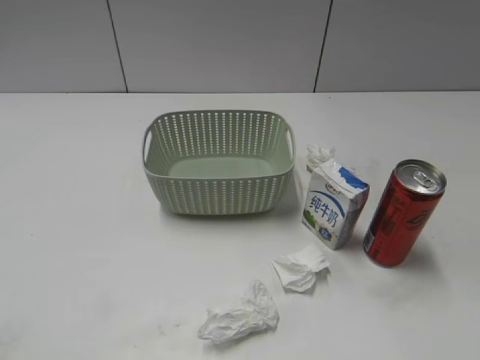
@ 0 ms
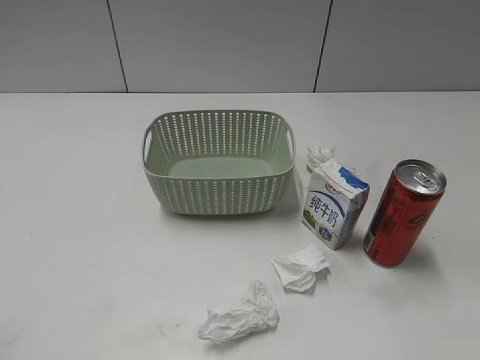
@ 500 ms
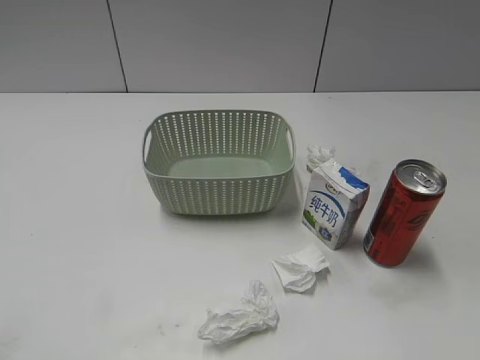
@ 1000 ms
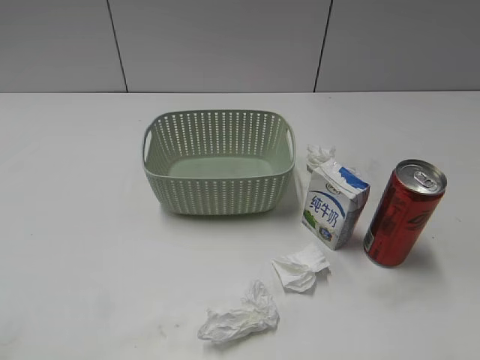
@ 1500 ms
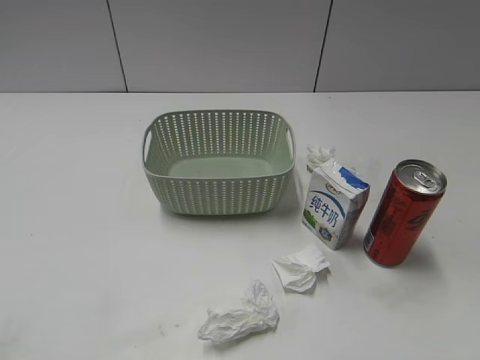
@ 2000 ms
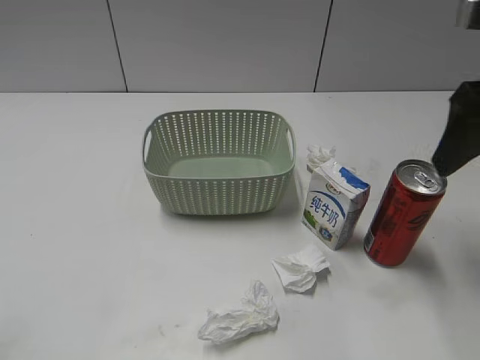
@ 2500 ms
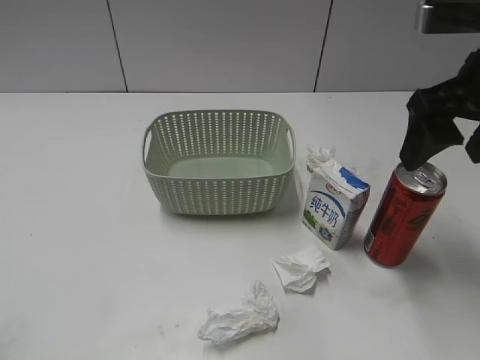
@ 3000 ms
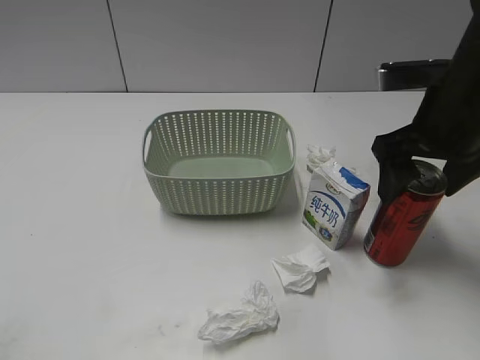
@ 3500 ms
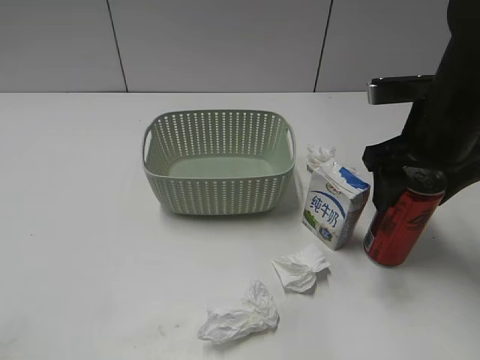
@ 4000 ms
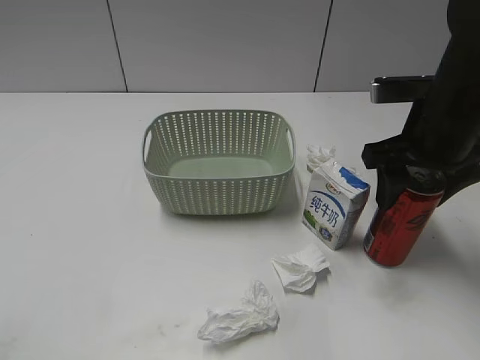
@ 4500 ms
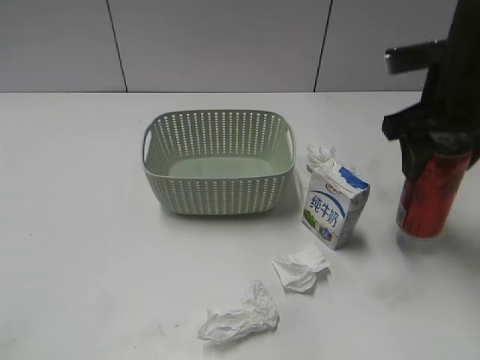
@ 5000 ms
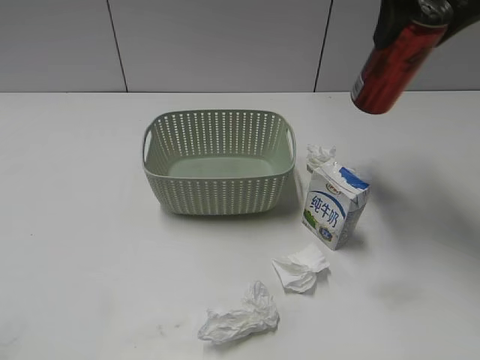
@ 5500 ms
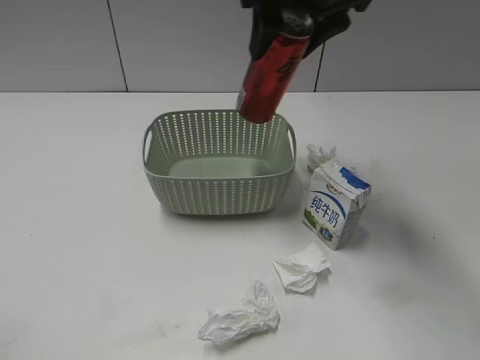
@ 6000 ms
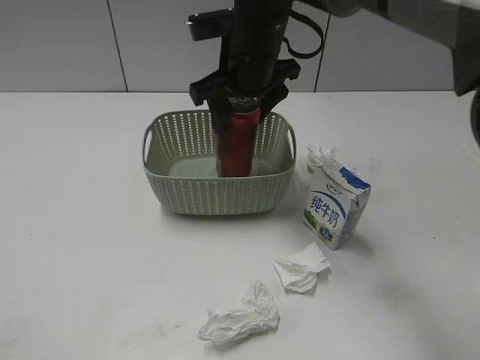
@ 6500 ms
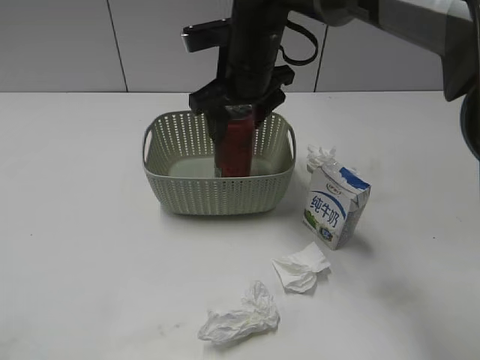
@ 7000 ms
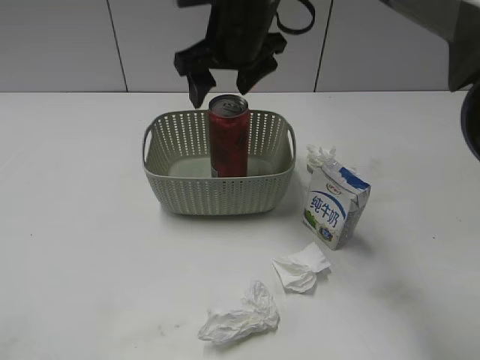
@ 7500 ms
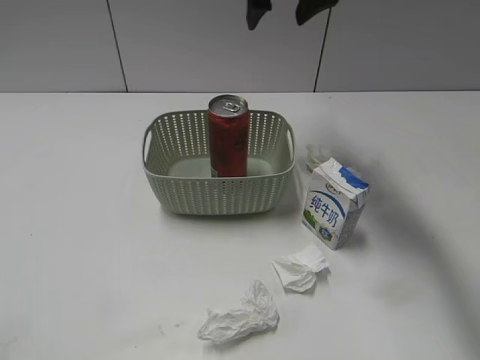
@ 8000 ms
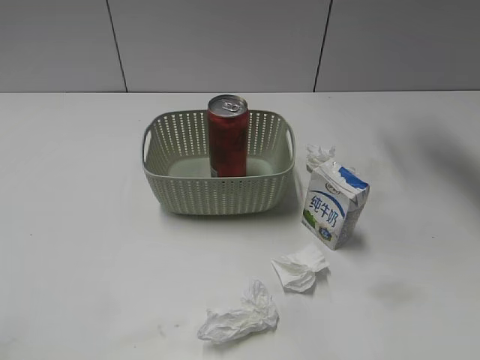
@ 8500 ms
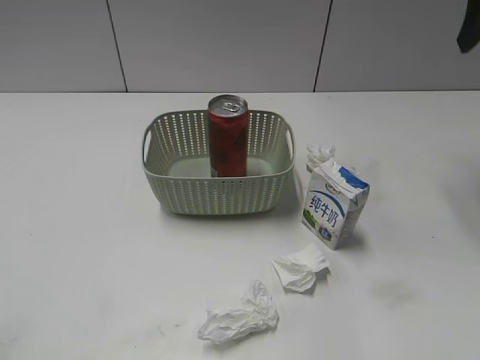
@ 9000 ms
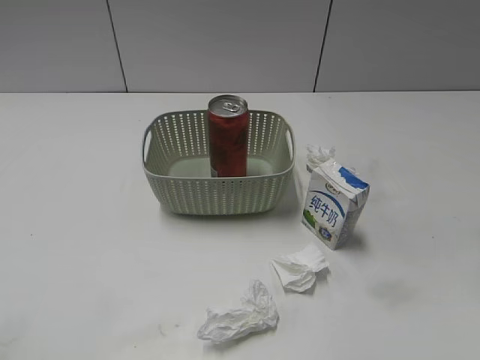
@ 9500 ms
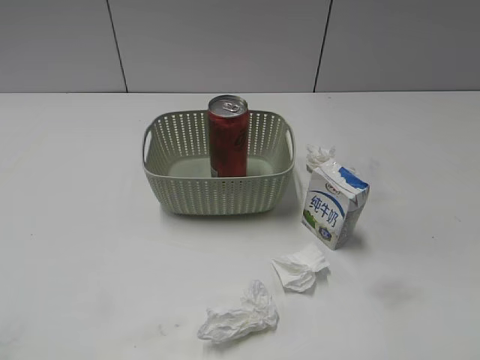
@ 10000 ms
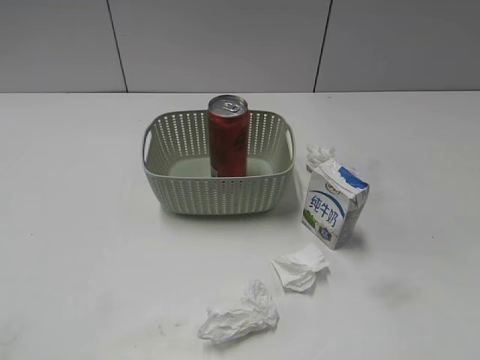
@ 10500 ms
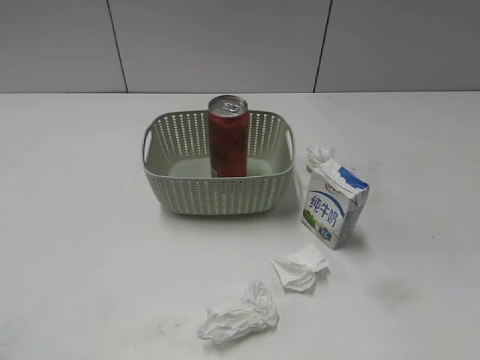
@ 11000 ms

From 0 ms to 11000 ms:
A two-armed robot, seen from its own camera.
Step, from 2500 ms to 4500 ms: Grasp the cola can with right gripper.
Step, from 5000 ms to 7500 ms: Place the cola can in the basket with right gripper.
From 2000 ms to 3500 ms: The right gripper travels forward, downward and to the left by some 15 cm, and opens.
From 3500 ms to 5500 ms: The right gripper shifts some 15 cm upward and forward, and closes up.
From 5500 ms to 7500 ms: The right gripper goes some 20 cm to the left and downward, and opens its fingers.
From 7500 ms to 9000 ms: The right gripper heads to the right, covering about 30 cm, and closes up.
From 9000 ms to 11000 ms: The right gripper is displaced backward by about 35 cm.

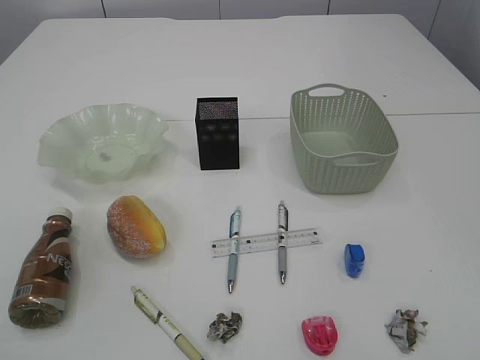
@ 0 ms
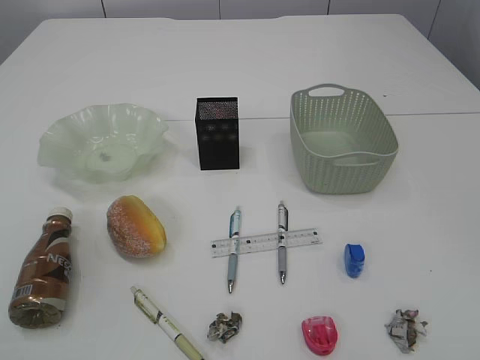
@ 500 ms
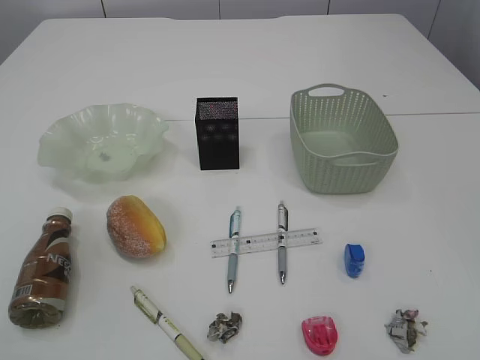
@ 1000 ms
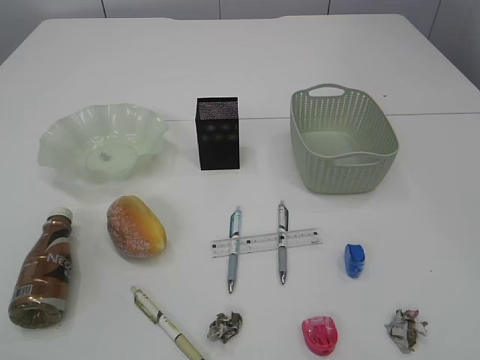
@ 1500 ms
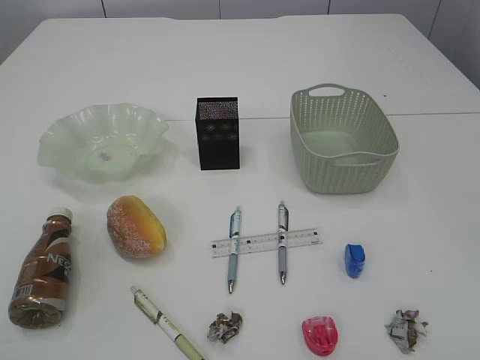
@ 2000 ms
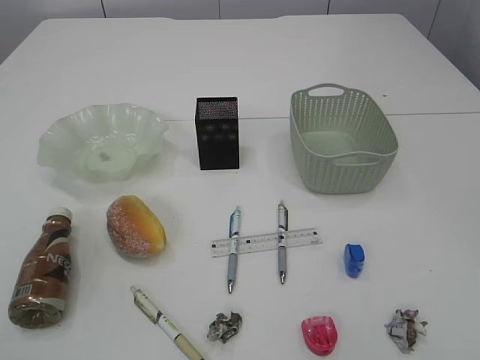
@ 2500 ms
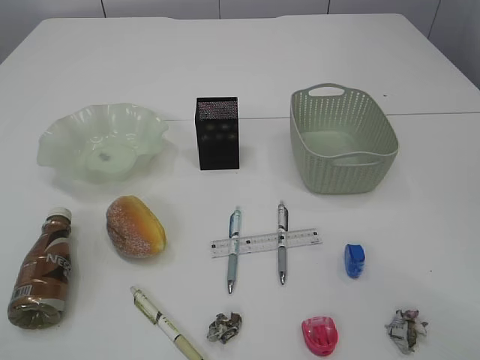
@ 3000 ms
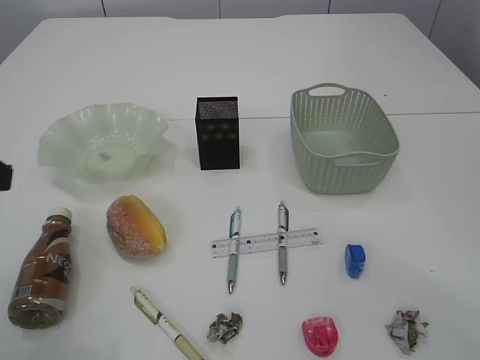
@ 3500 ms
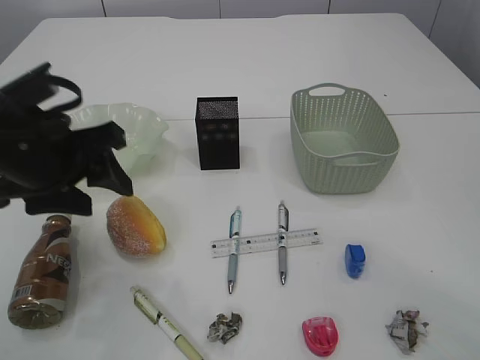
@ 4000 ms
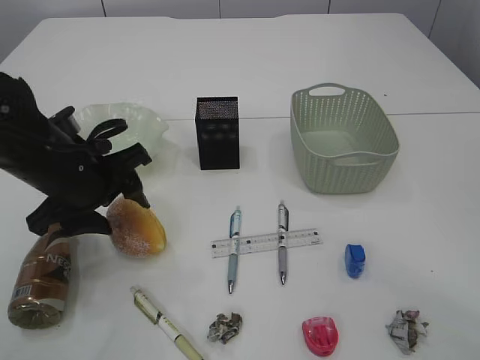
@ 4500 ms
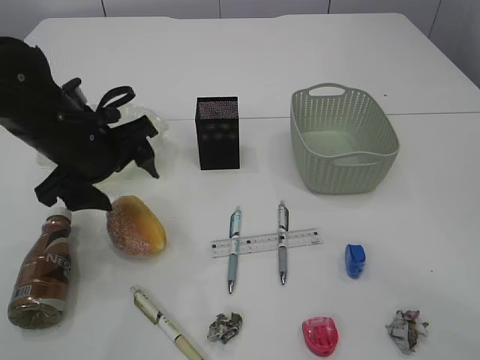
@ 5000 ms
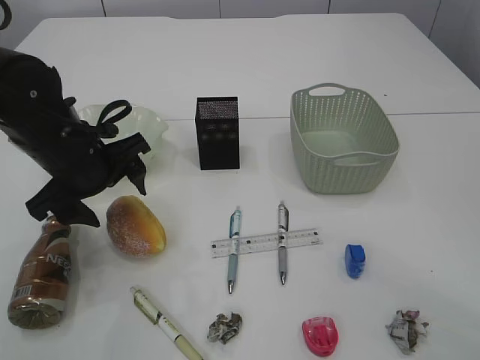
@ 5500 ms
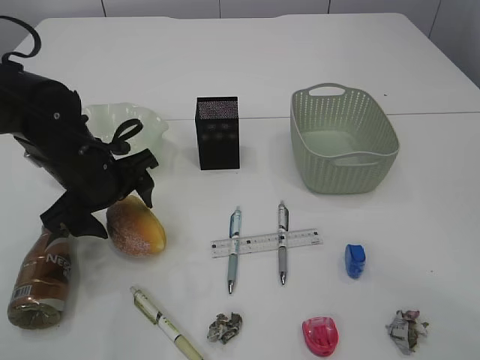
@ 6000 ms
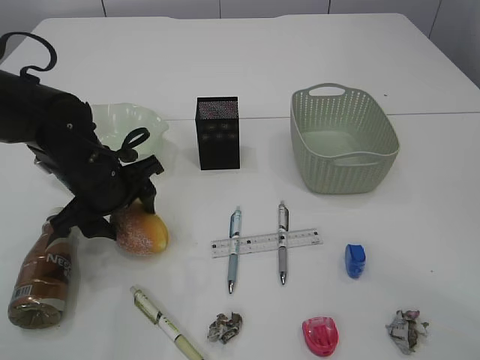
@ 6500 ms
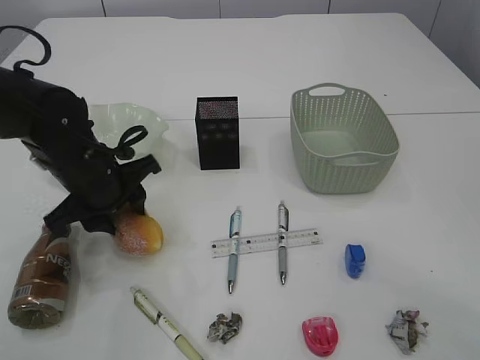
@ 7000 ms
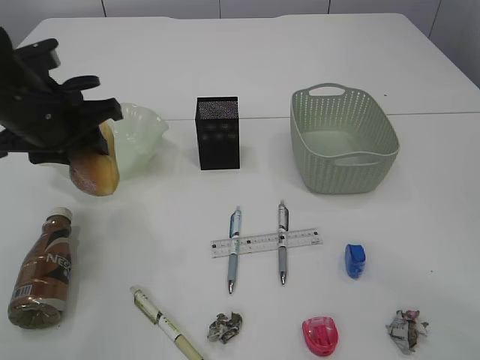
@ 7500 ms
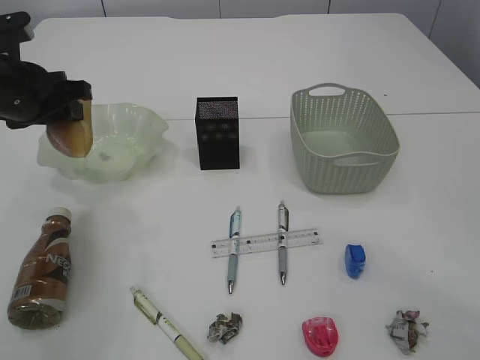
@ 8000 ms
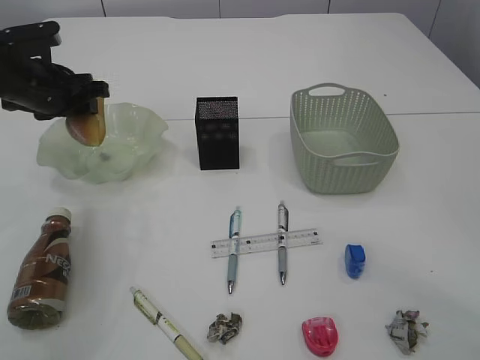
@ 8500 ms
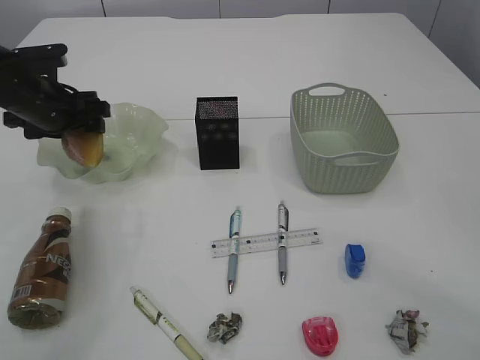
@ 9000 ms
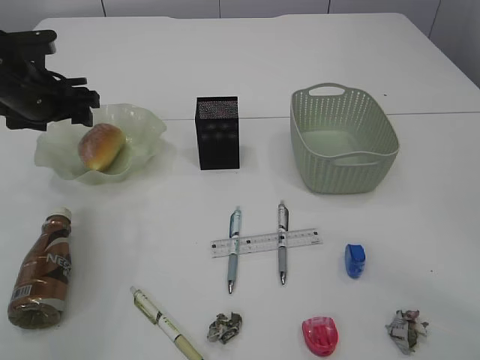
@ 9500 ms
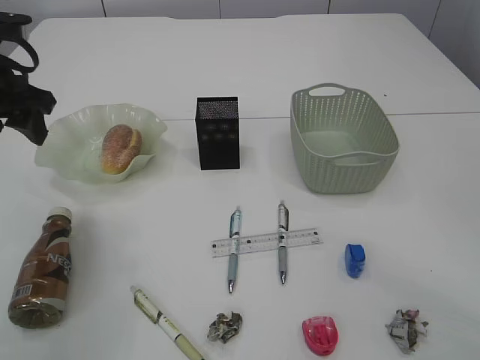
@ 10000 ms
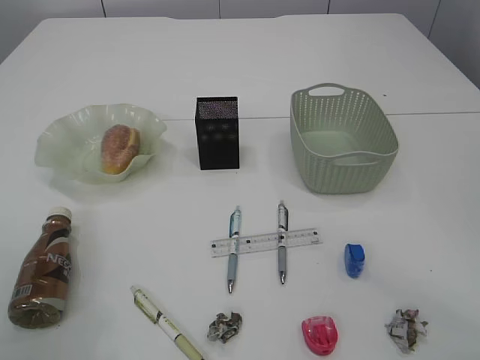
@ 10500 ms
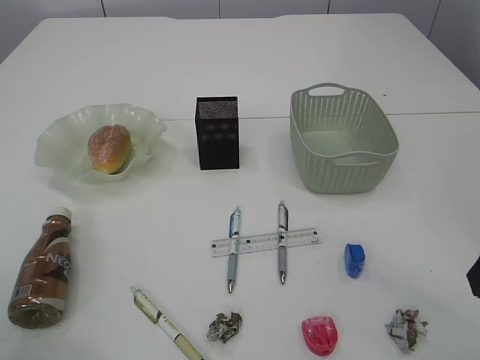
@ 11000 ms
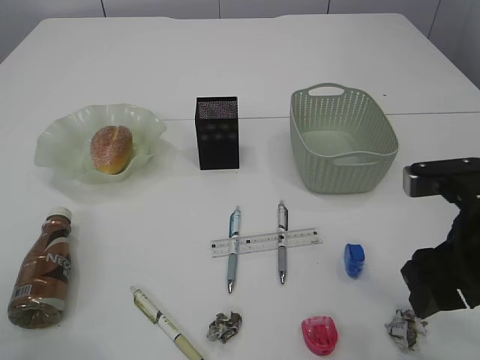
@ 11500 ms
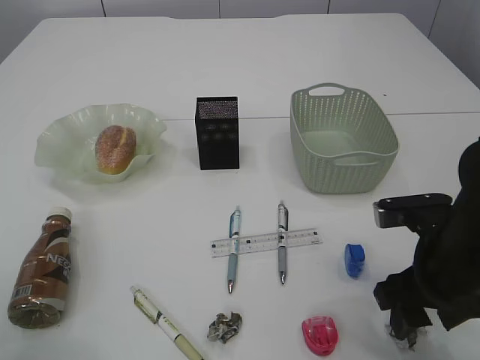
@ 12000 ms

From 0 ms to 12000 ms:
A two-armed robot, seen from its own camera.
Step, from 7500 ms to 10000 ms: place the bread in the plate.
From 2000 ms to 4000 ms: The left gripper heads forward and to the right, covering about 30 cm.
From 4000 ms to 6000 ms: The left gripper heads downward and forward, covering approximately 10 cm, and opens up.
From 6000 ms to 8000 ms: The left gripper is displaced to the left and upward by roughly 10 cm, and closes.
From 8000 ms to 10000 ms: The left gripper moves some 5 cm downward and comes back, and opens up.
From 10000 ms to 12000 ms: The right gripper is displaced downward, forward and to the left by about 15 cm. Meanwhile the left gripper heads backward and upward, covering about 15 cm.

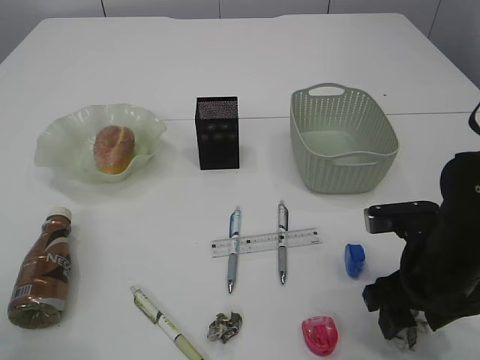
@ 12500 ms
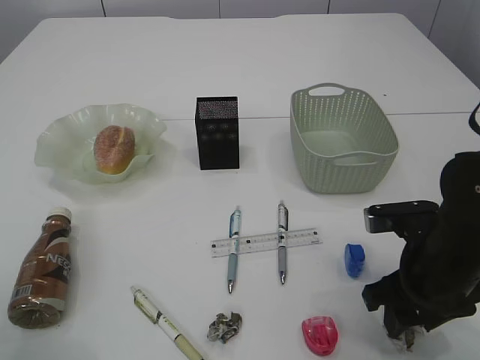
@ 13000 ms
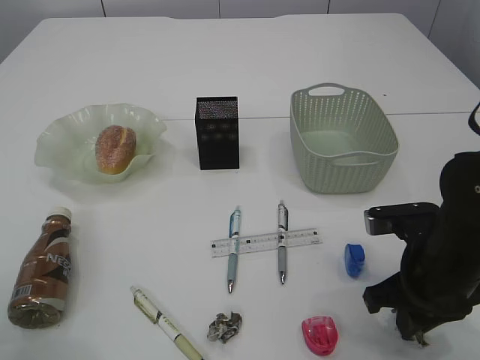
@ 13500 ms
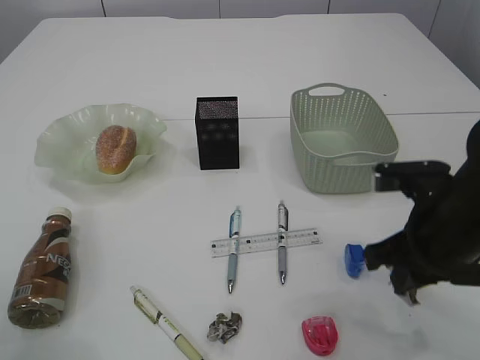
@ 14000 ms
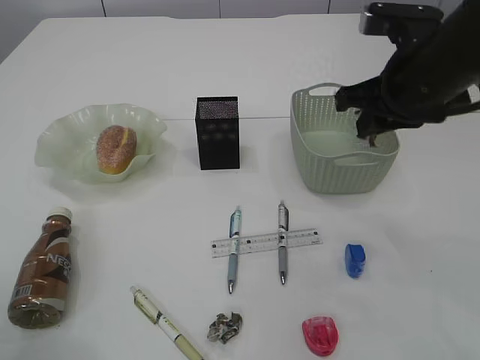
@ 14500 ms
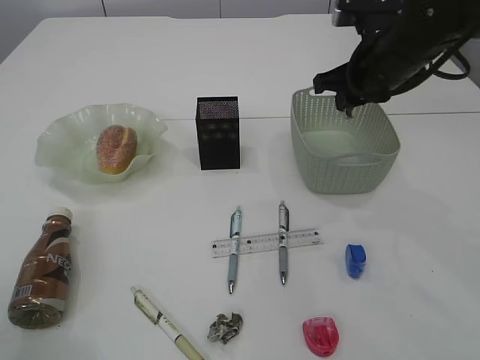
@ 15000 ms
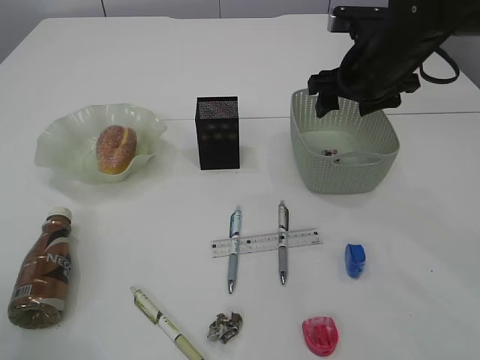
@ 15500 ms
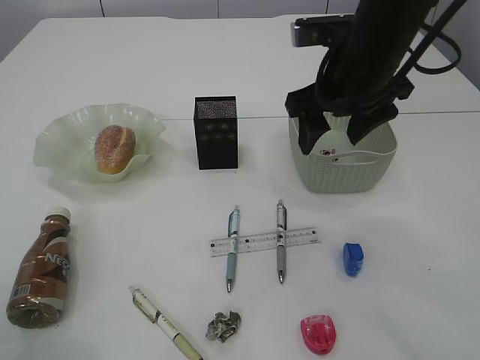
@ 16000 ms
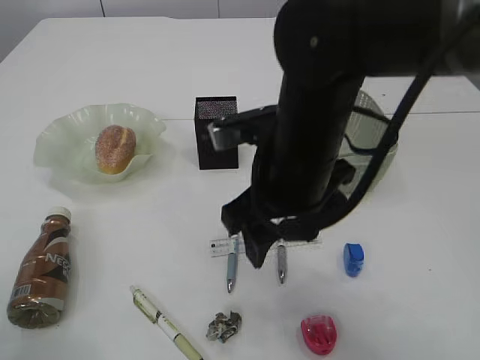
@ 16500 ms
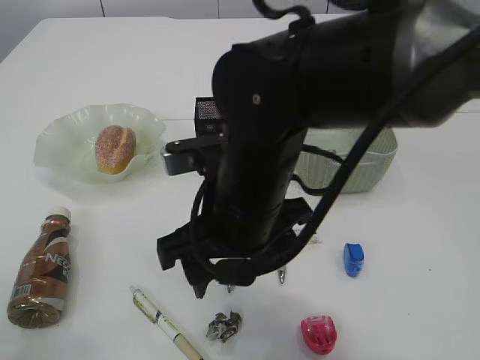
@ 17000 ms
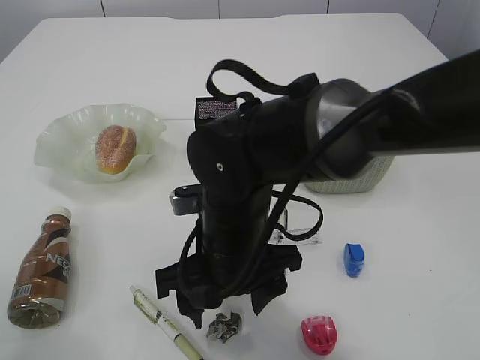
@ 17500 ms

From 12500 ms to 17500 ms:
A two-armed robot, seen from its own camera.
Step, from 14500 ms to 15500 ms: Place the waste paper in the basket.
From 12500 ms to 15000 ms: The right gripper shifts roughly 20 cm forward and upward, and closes its fingers.
From 15000 ms to 17500 ms: The right gripper shifts roughly 25 cm to the left, backward and downward, and opens its fingers.
